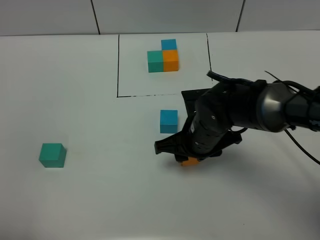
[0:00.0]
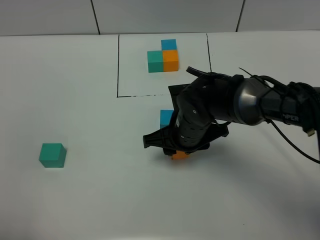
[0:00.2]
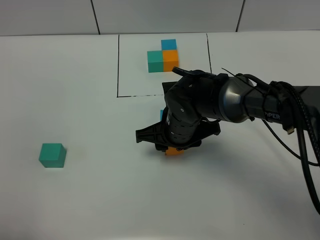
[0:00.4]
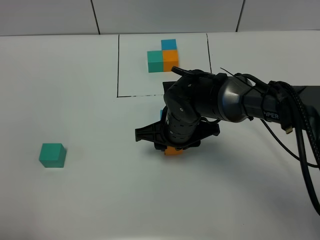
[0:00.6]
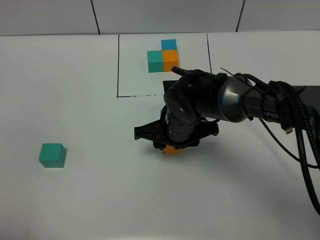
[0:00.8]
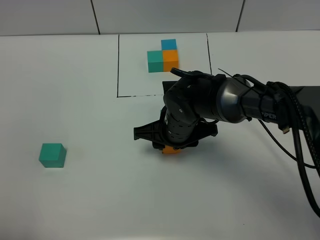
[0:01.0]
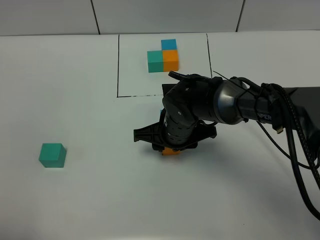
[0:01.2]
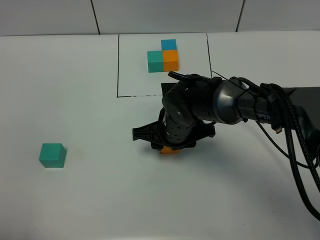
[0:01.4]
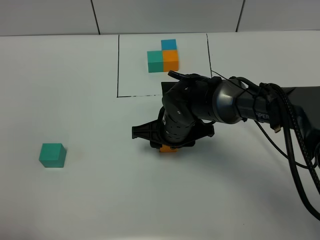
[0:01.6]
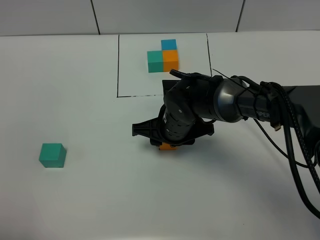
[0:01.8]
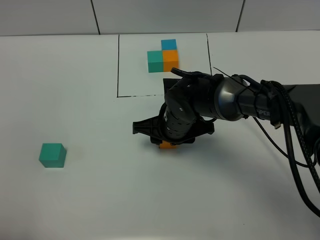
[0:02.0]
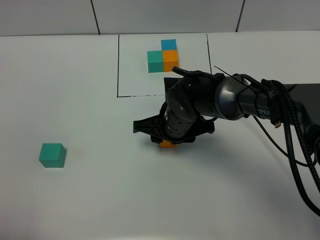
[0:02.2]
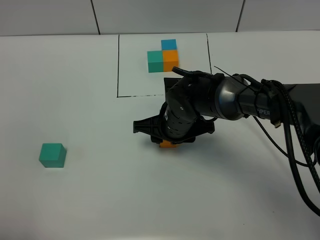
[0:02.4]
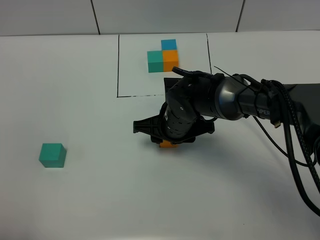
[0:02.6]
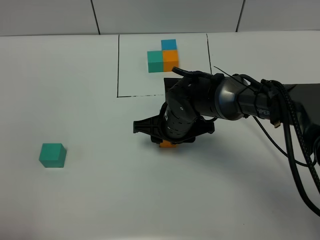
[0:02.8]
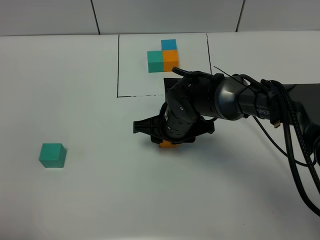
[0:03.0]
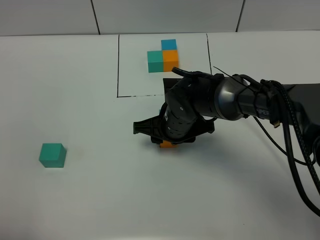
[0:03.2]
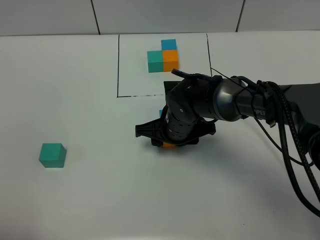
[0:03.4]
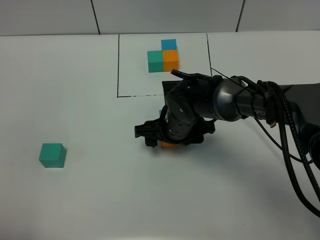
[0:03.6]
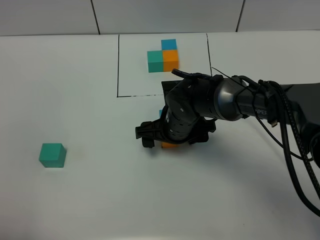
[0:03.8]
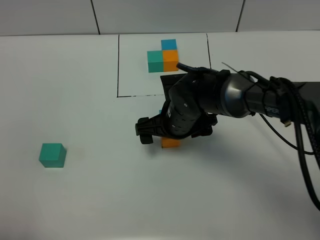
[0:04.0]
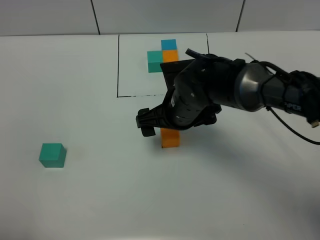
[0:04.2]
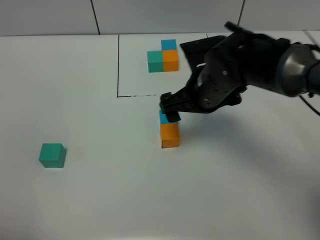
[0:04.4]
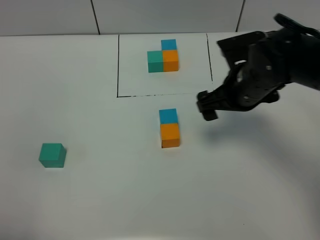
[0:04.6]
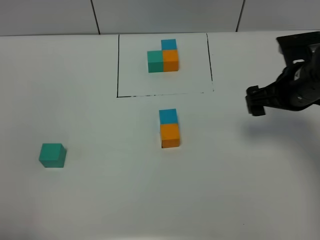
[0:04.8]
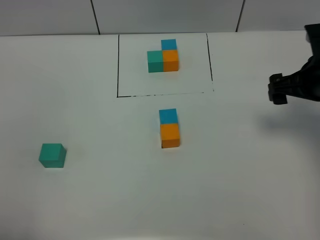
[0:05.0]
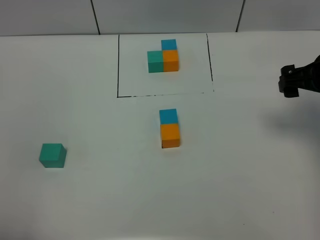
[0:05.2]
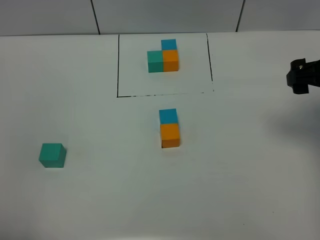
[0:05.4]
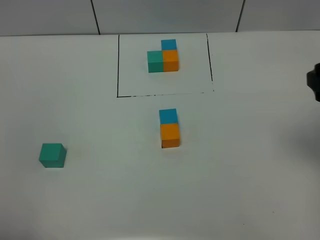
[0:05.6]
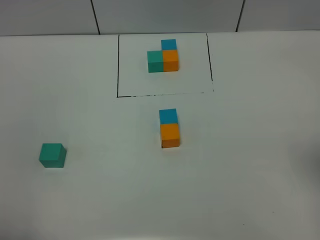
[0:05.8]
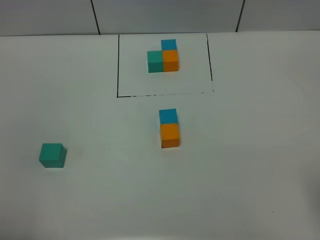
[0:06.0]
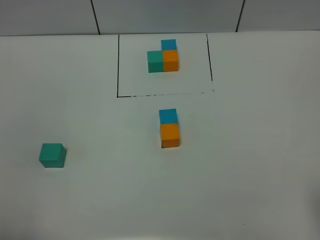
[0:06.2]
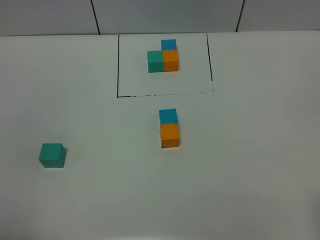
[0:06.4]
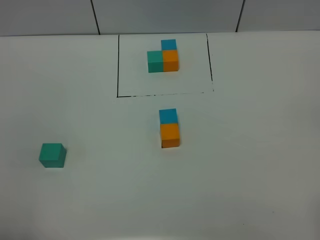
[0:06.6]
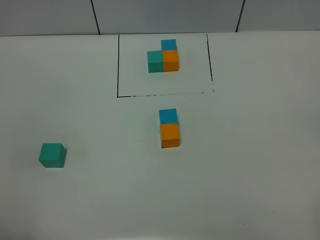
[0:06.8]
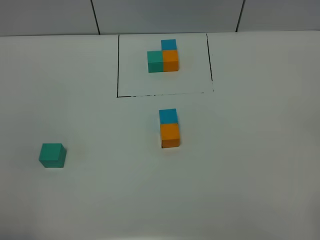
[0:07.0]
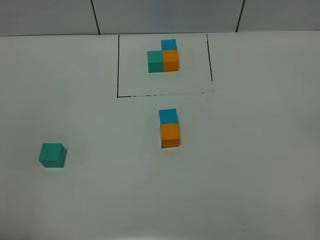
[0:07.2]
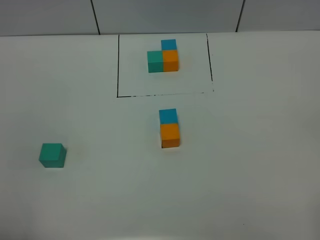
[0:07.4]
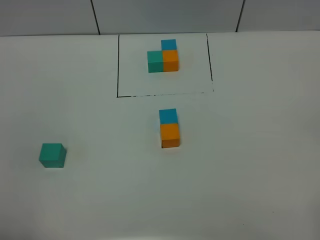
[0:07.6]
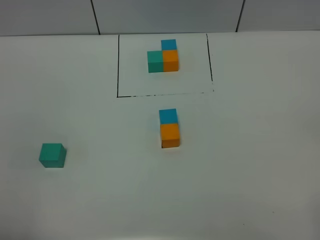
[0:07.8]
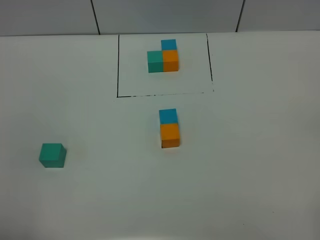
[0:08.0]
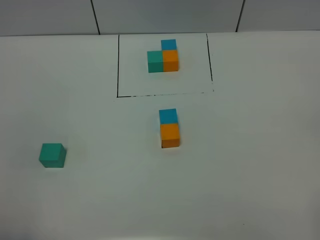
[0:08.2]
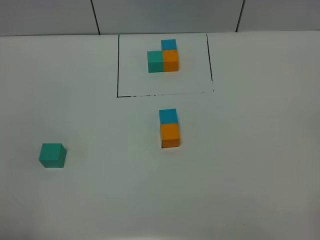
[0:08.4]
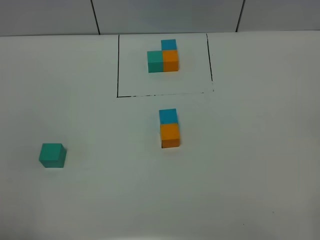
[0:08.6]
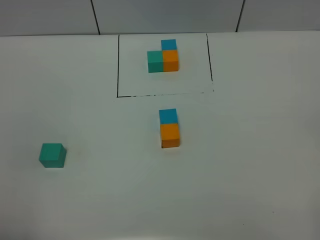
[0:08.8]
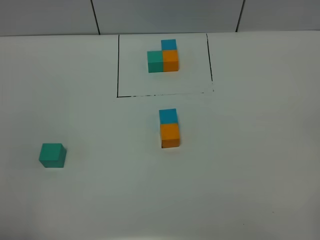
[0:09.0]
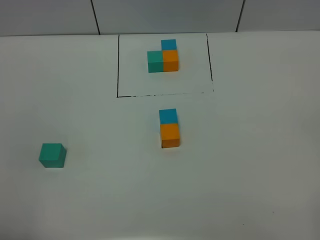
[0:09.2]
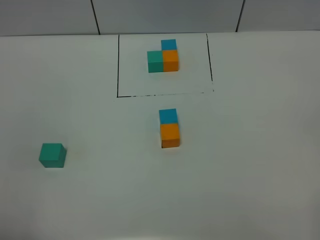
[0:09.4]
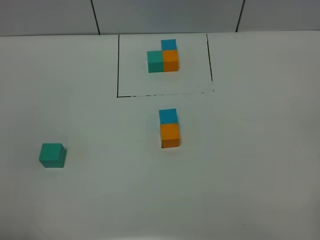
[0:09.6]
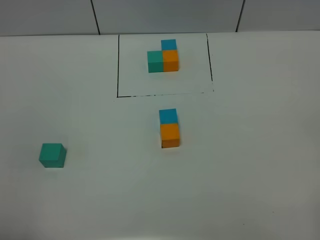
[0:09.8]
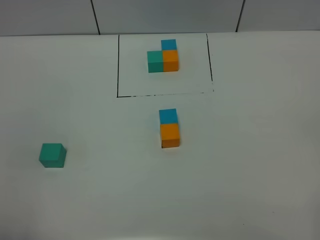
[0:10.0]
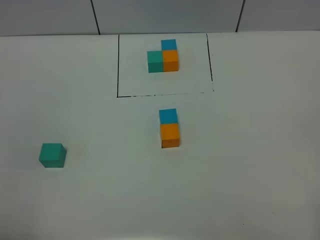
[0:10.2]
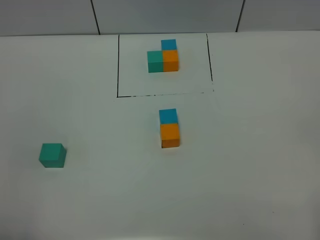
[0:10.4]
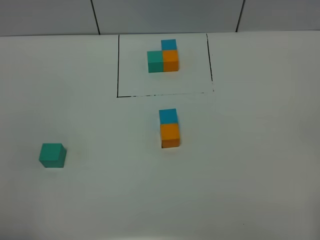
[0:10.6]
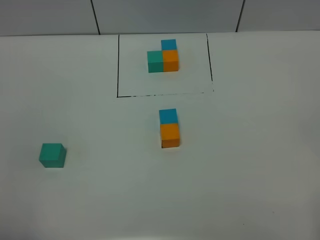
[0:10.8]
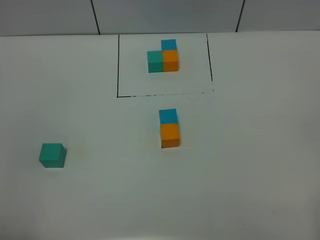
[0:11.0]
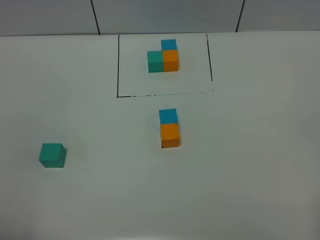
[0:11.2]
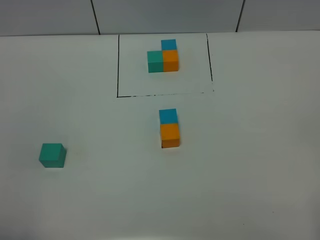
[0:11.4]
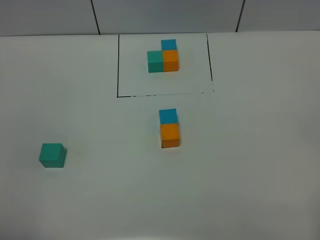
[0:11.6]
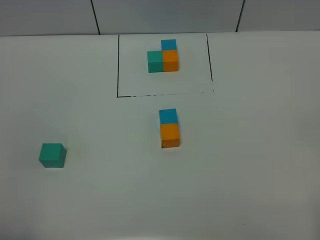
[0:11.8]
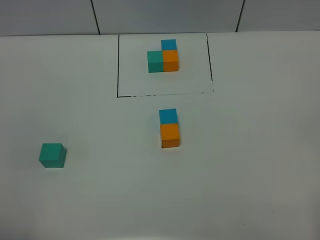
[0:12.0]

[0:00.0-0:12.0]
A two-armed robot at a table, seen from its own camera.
Task of the whole recording: According to the building block template in front, assemble the scattered blocks together.
Step, 0:00.0 to 0:03.6: Put the orange build block on the behind of the blue build block.
0:00.0 to 0:01.6: The right gripper shifts by roughly 5 cm.
0:01.6 to 0:03.0: Both grippers stay put.
0:03.0 to 0:04.4: The right gripper heads upward and to the right, covering roughly 10 cm, and opens its fingers.
0:04.4 to 0:06.0: The right gripper goes approximately 35 cm backward, to the right and upward.
0:10.4 to 0:12.0: Both grippers stay put.

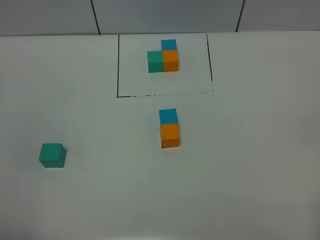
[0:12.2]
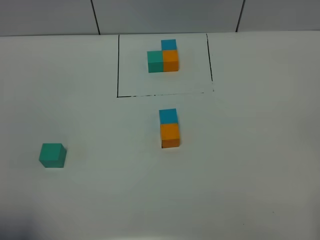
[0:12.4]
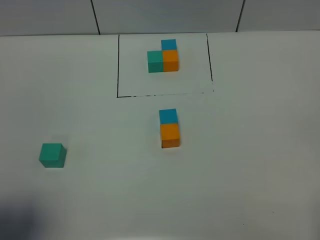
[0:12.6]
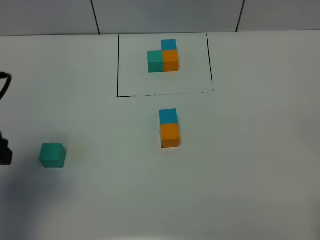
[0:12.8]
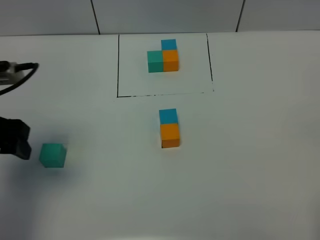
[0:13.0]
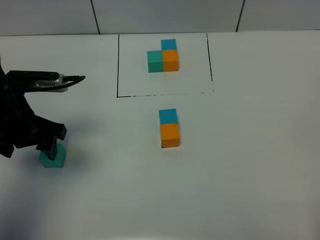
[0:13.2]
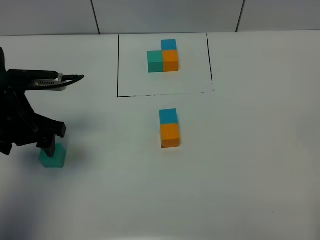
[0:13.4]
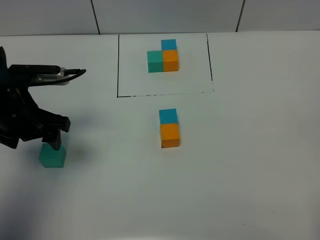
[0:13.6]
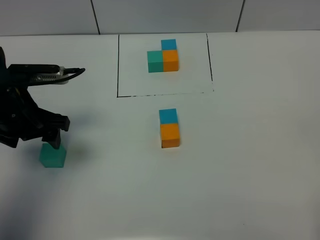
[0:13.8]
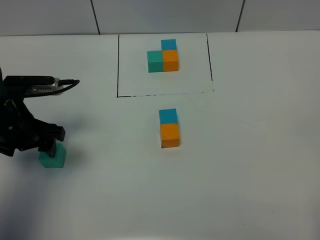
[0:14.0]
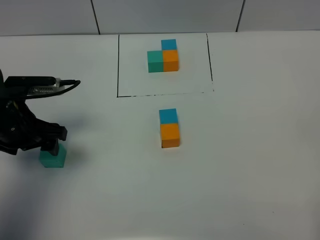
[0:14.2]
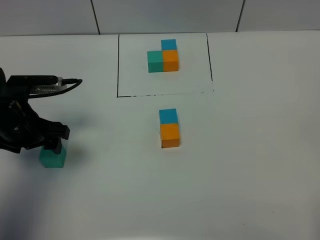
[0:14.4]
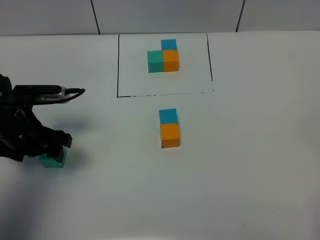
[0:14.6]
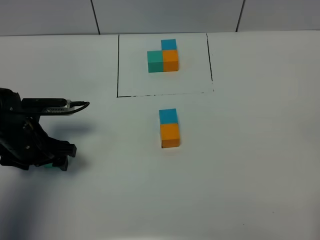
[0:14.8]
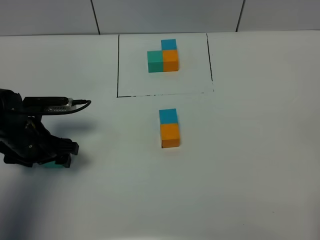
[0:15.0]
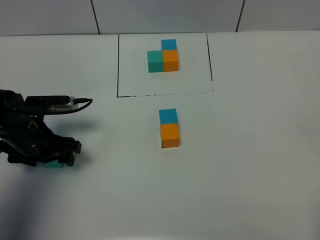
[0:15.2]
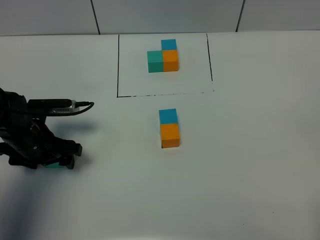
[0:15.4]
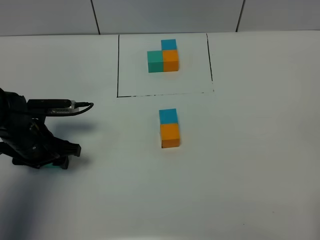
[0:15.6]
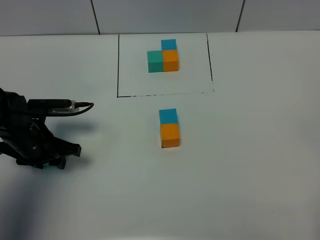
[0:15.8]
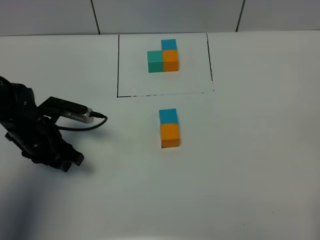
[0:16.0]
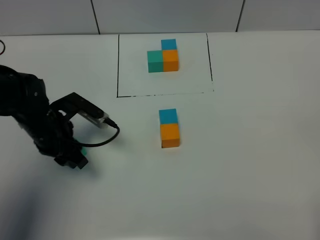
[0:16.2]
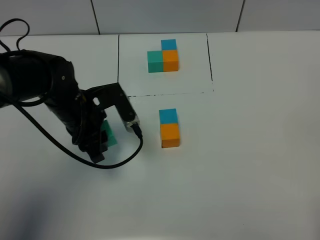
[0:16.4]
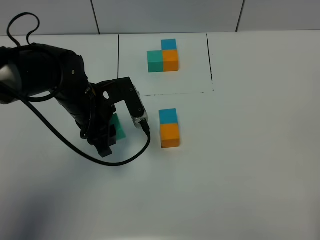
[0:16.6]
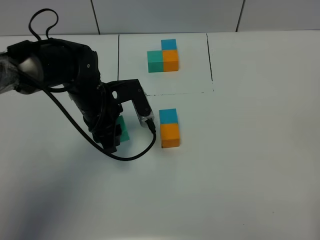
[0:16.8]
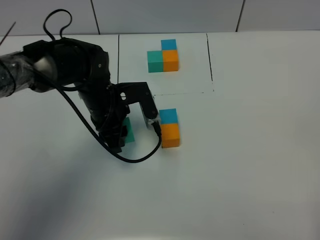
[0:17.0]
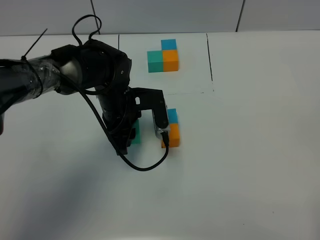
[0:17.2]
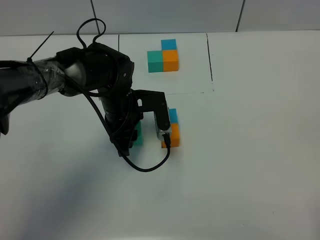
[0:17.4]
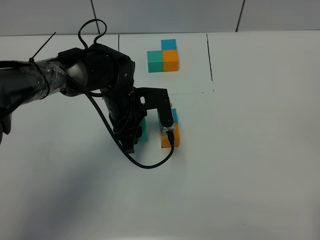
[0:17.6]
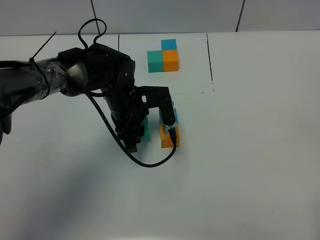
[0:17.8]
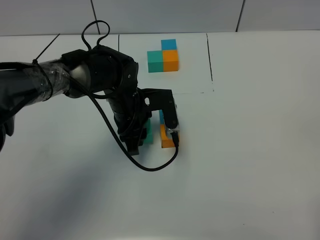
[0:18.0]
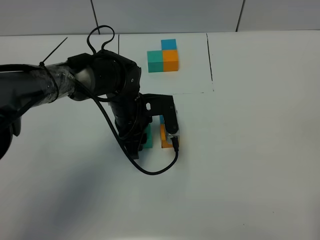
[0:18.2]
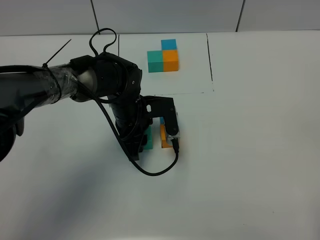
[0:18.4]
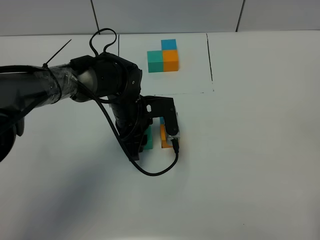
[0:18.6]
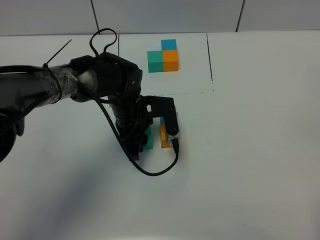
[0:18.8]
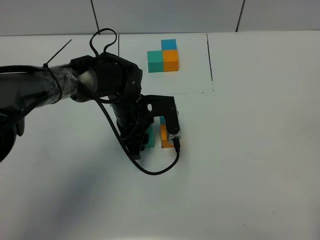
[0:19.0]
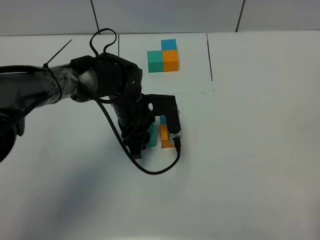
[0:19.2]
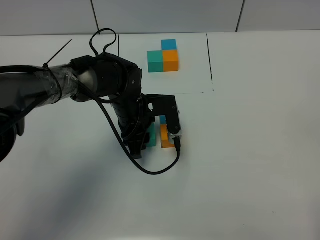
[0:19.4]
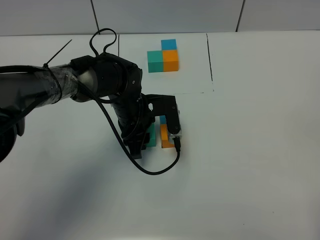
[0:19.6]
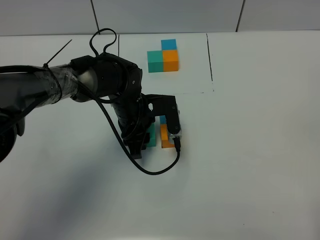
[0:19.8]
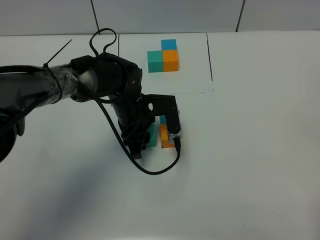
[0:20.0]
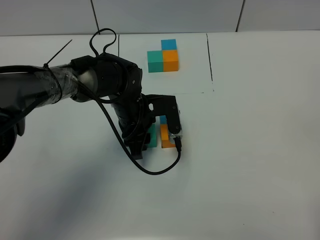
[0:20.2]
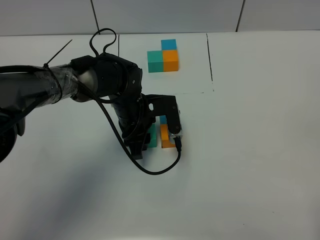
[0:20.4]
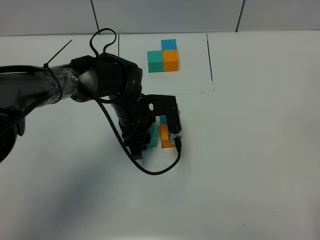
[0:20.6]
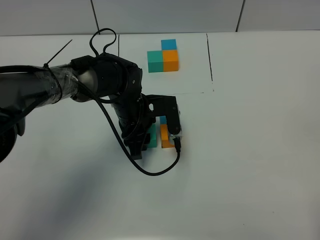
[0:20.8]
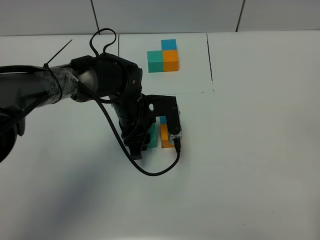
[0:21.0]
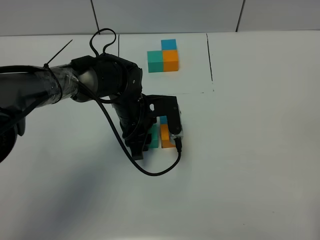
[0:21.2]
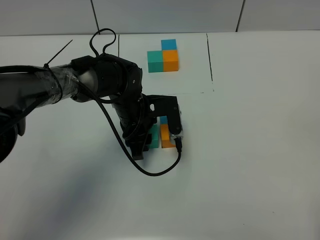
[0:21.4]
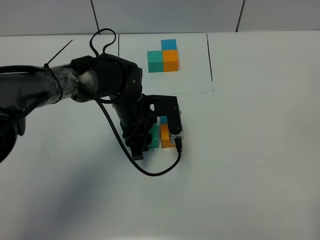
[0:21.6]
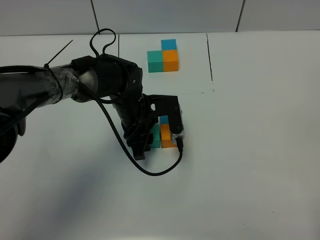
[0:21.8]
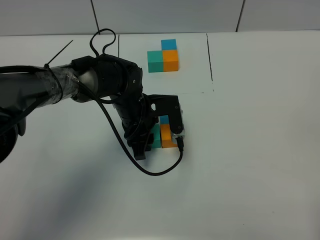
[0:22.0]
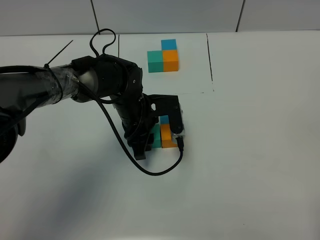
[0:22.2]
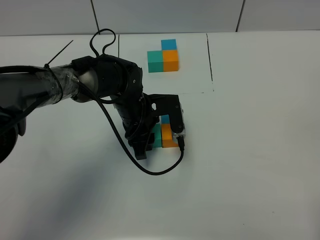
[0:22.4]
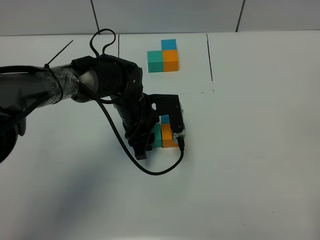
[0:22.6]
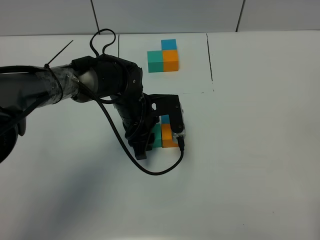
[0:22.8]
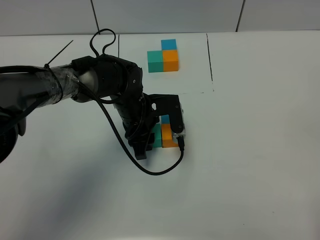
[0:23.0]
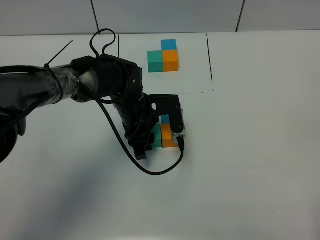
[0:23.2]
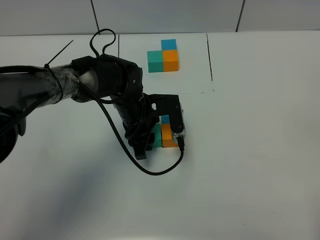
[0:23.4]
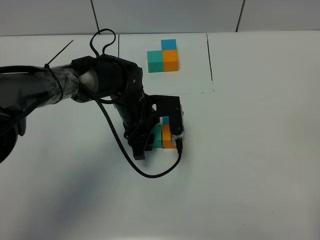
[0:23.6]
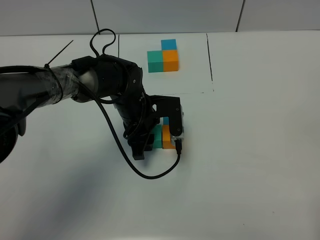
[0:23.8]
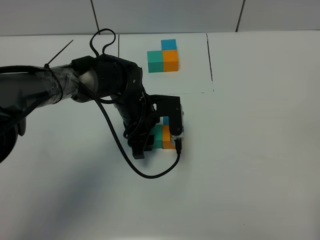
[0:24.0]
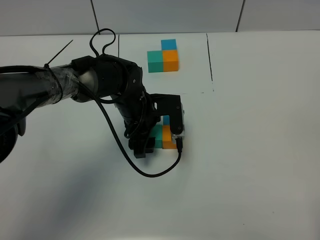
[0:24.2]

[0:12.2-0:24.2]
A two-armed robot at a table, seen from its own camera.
Task of the whole recording: According to the building block template in front, assemble the scattered blocks together.
Step, 0:12.2 to 0:24.0: Put the green build block on the left of the orange build block.
0:12.2 to 0:13.8: The left gripper is displaced forward by about 30 cm.
0:13.8 to 0:15.2: The left gripper shifts about 10 cm downward.
0:15.2 to 0:16.6: The left gripper goes some 10 cm to the right and upward, and closes.
0:16.6 to 0:18.2: The left gripper goes approximately 10 cm to the right and downward.
0:18.2 to 0:21.2: Neither gripper changes place.
0:21.2 to 0:22.6: Both grippers stay about where they are.
0:22.6 to 0:24.2: The left gripper opens.
